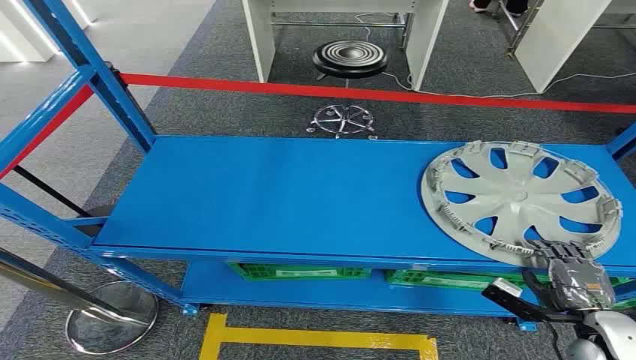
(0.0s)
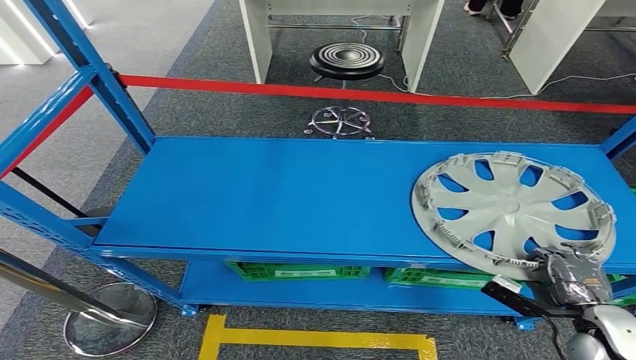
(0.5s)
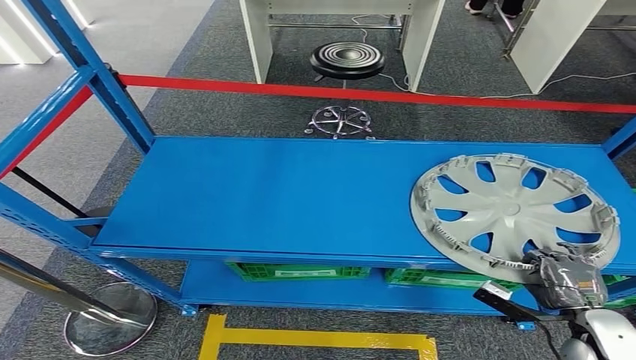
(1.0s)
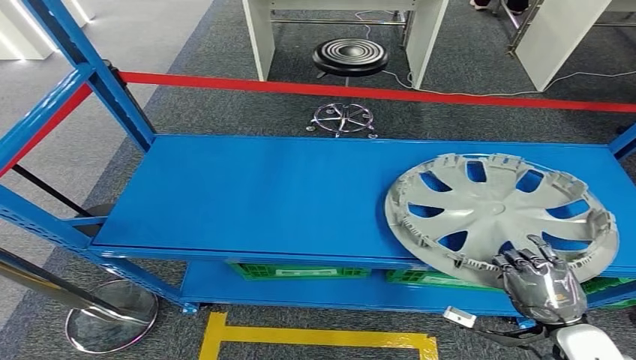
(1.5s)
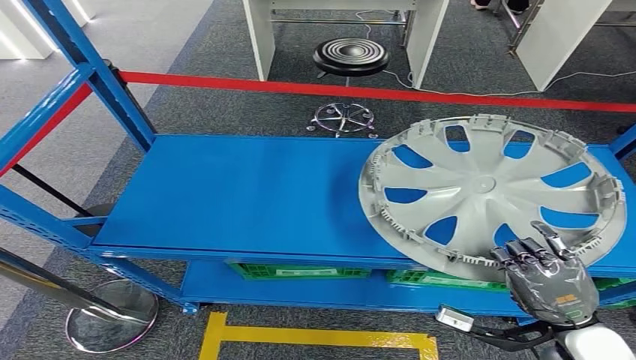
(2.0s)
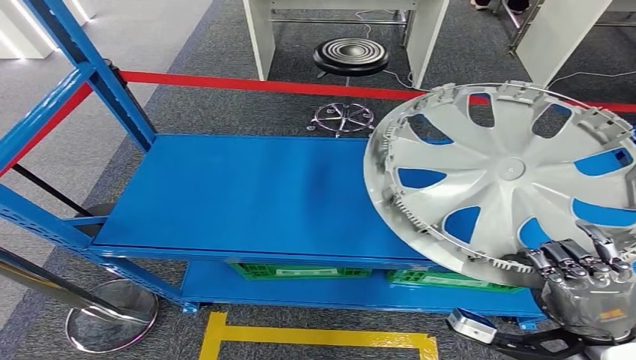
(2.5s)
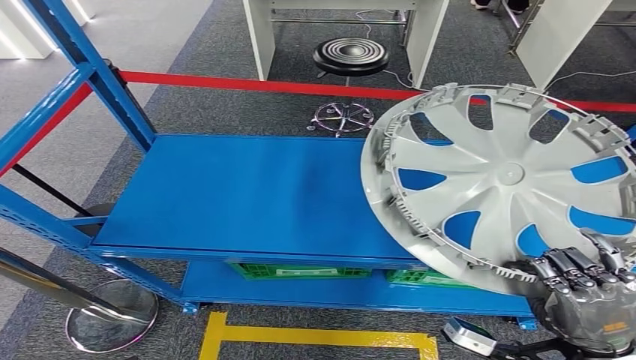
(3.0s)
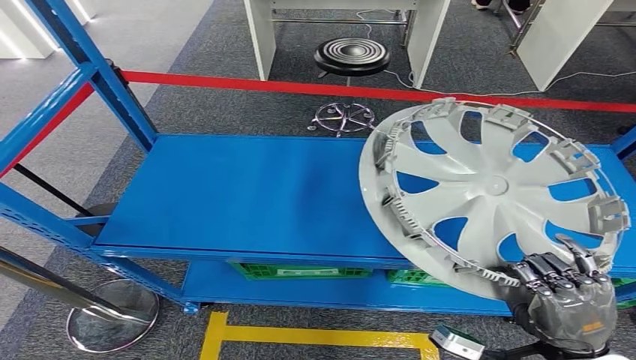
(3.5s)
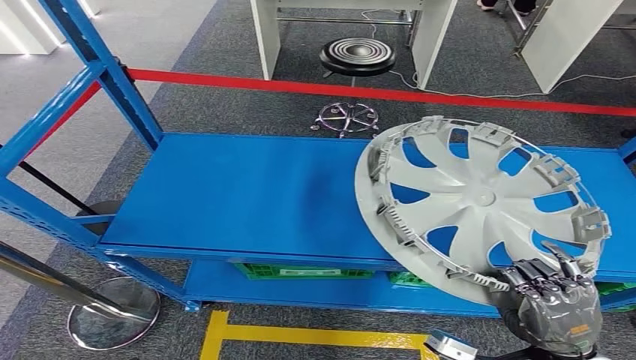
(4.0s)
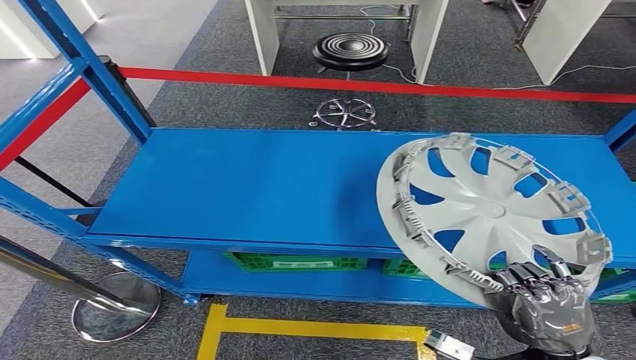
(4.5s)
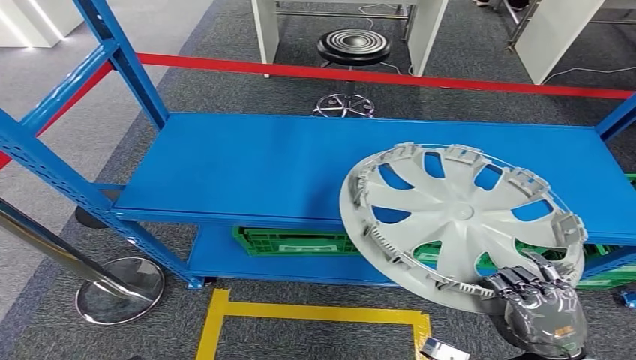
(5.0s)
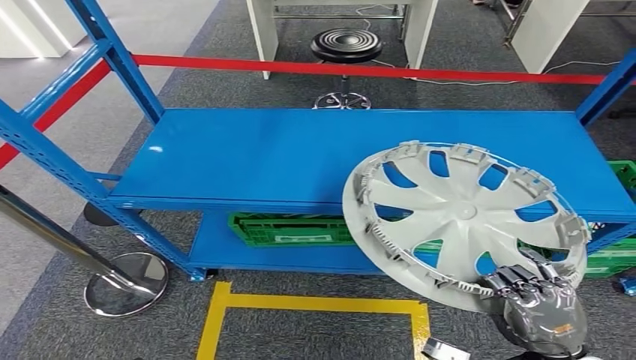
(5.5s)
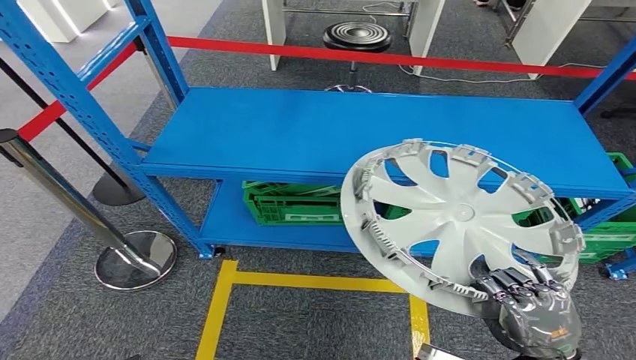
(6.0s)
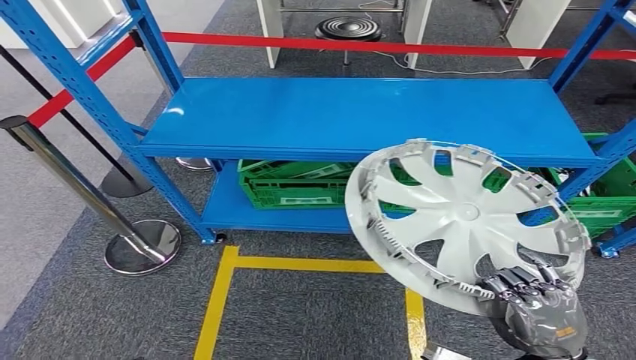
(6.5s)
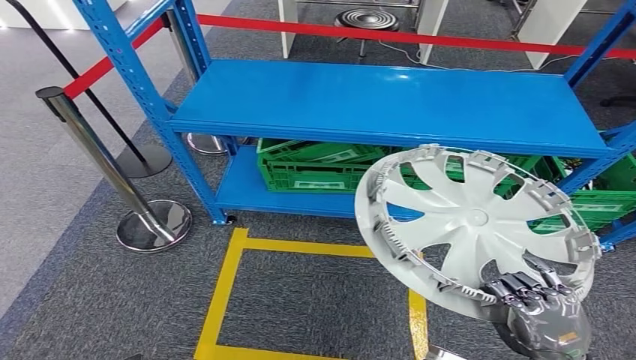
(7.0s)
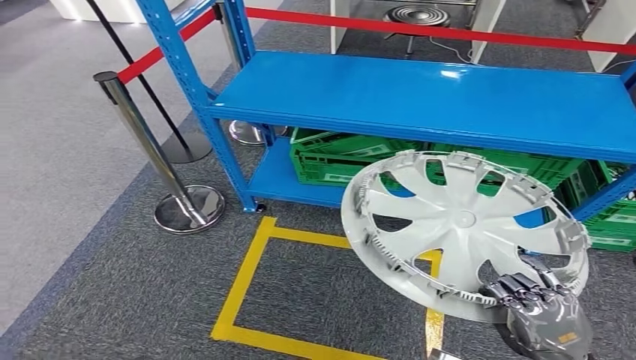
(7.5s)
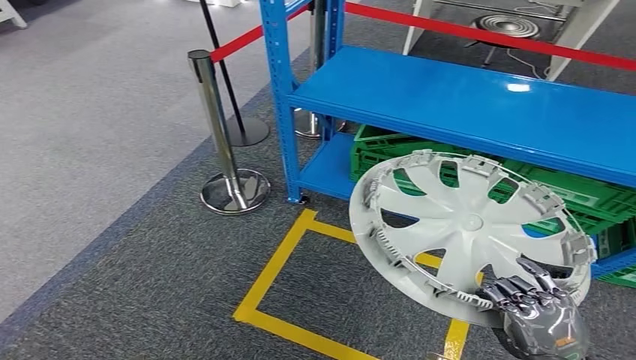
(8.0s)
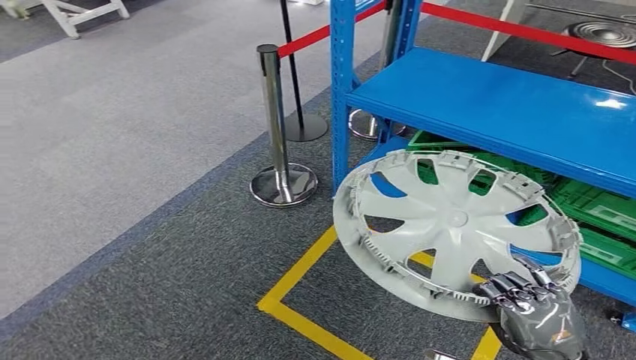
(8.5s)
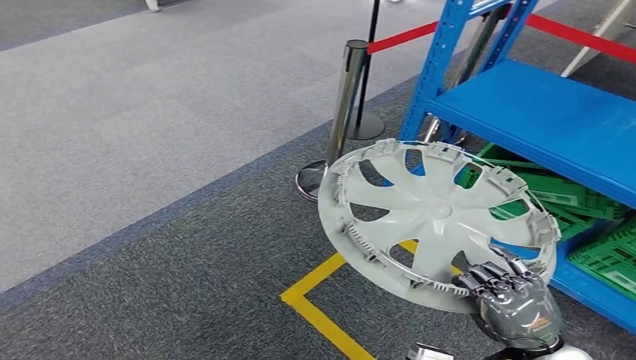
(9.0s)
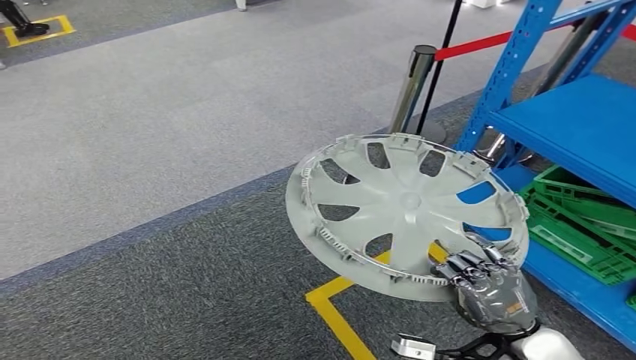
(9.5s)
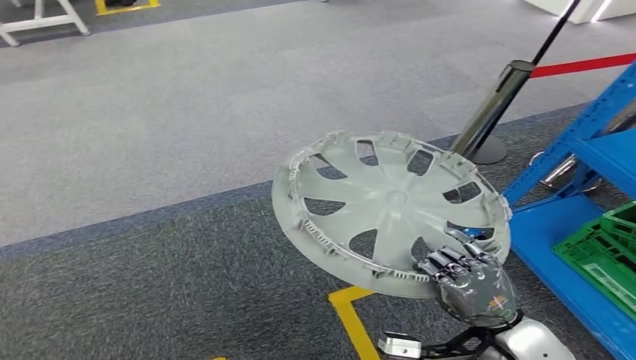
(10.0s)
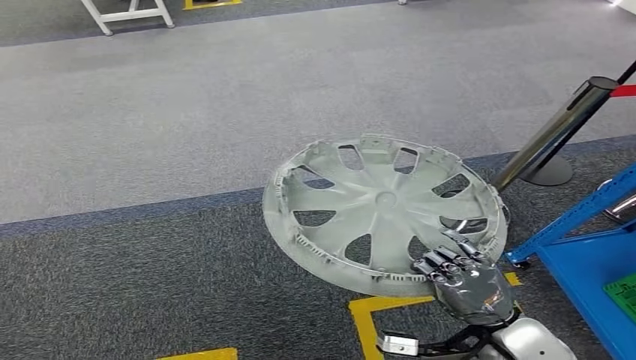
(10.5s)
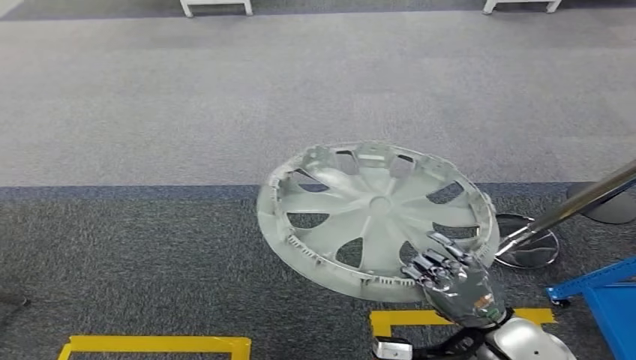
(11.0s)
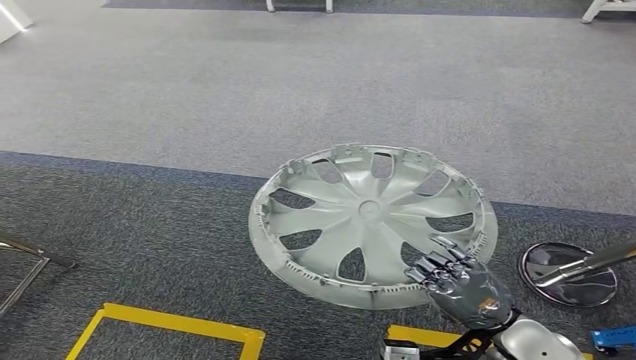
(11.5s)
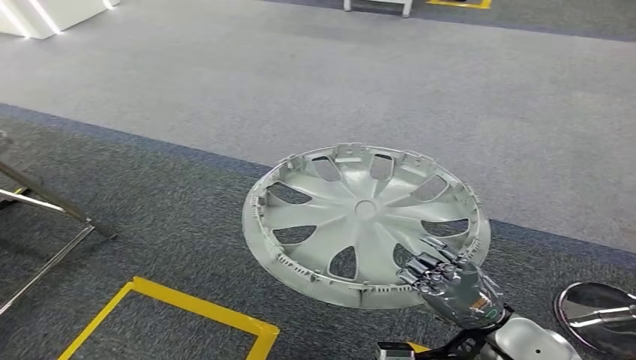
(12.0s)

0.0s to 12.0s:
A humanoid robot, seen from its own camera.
Step, 0.0s to 5.0s: Take small components from the rack.

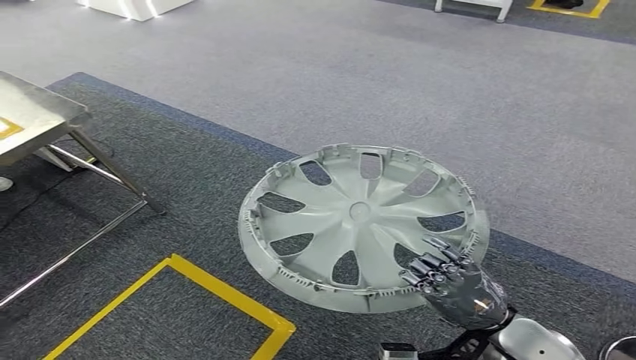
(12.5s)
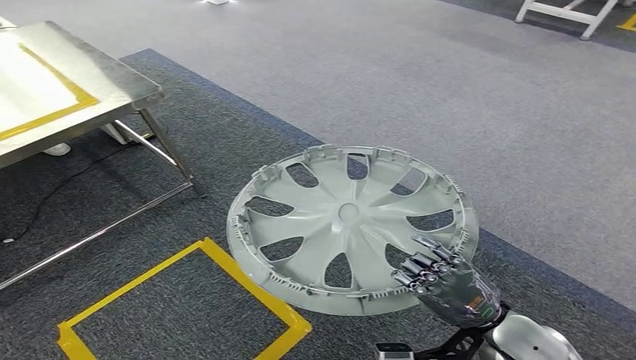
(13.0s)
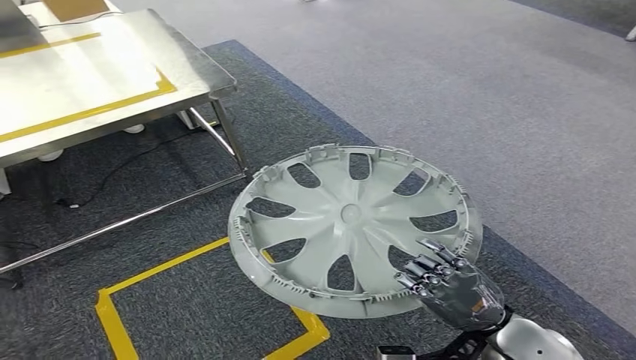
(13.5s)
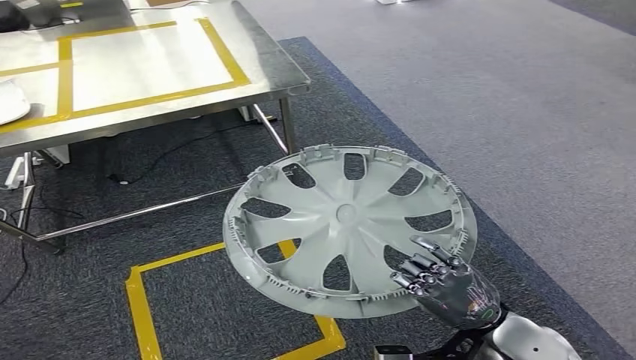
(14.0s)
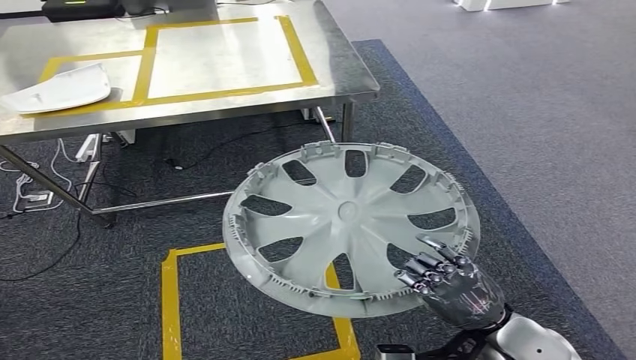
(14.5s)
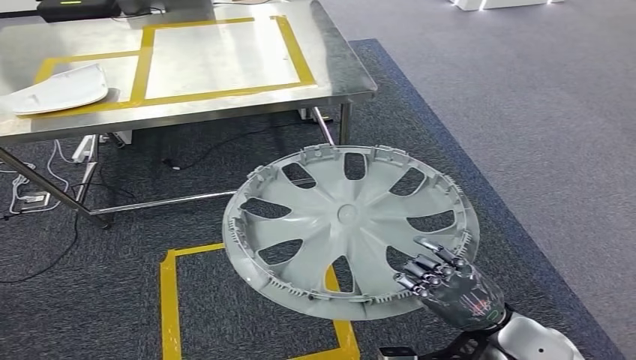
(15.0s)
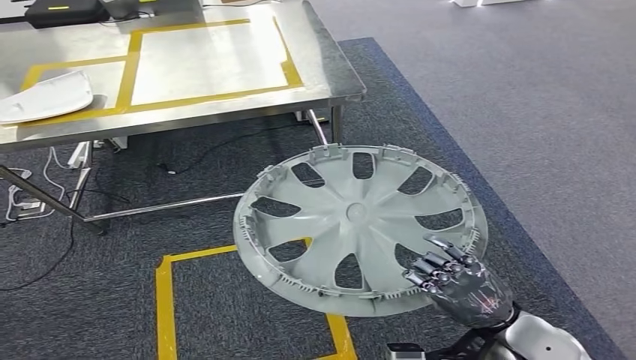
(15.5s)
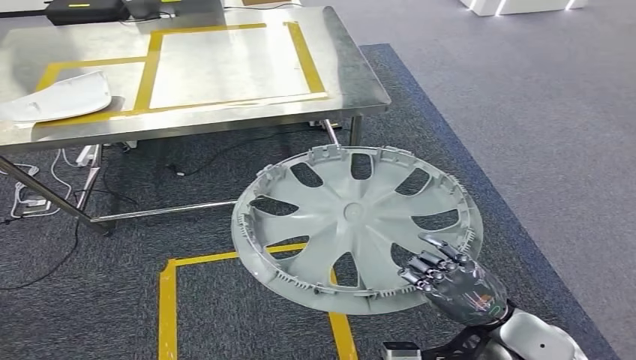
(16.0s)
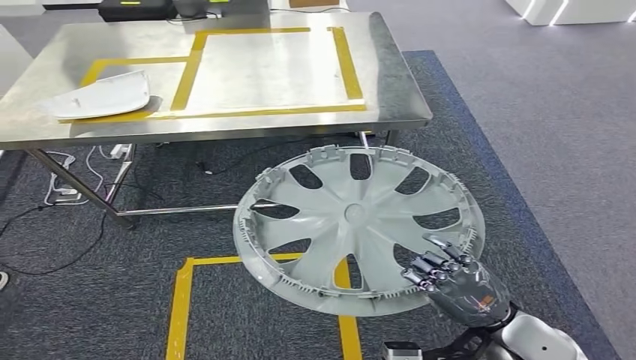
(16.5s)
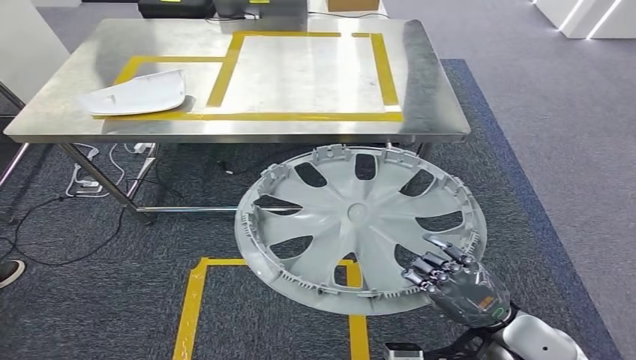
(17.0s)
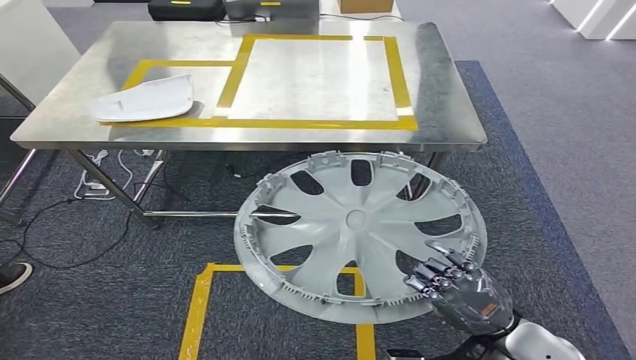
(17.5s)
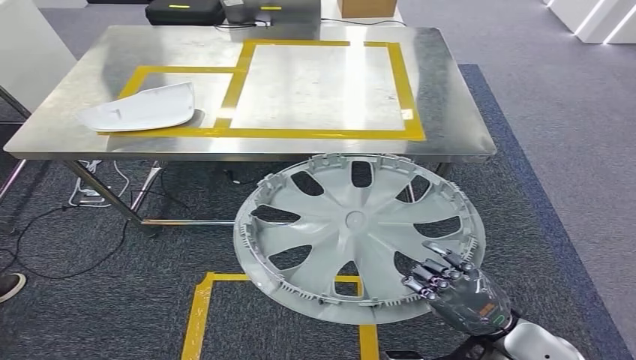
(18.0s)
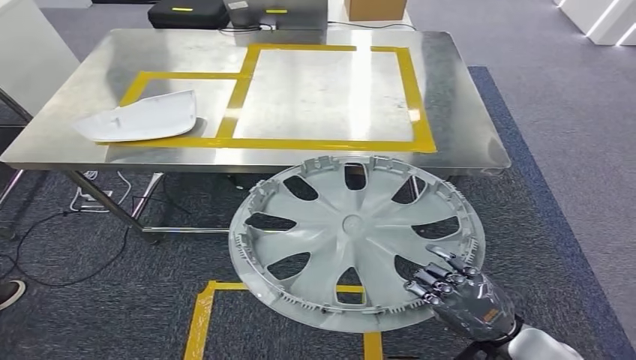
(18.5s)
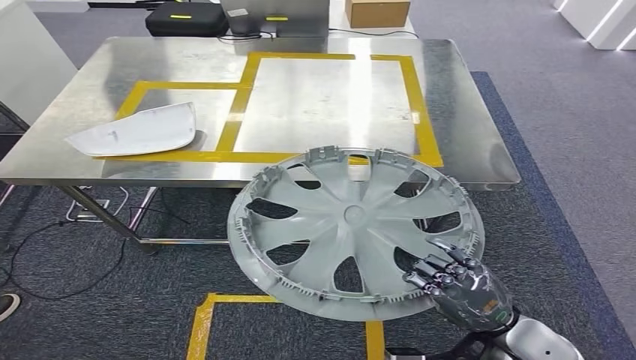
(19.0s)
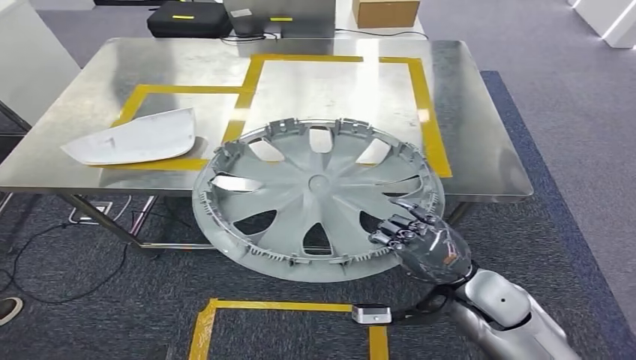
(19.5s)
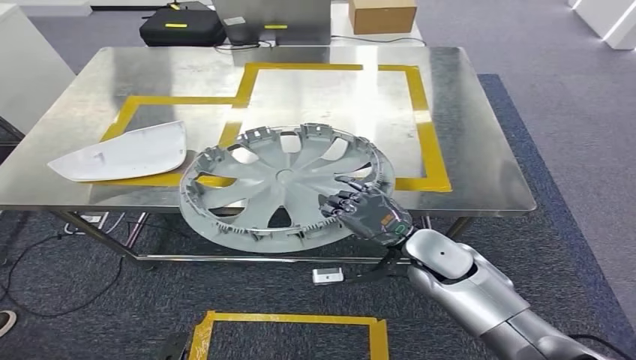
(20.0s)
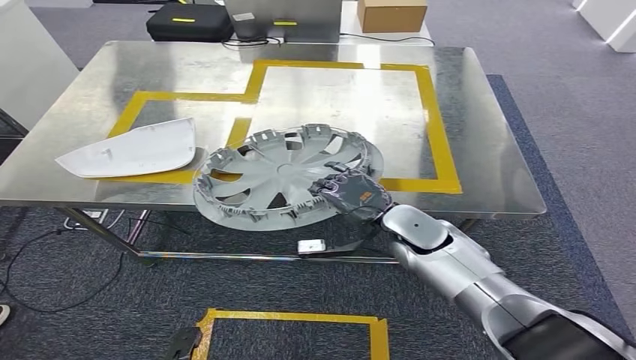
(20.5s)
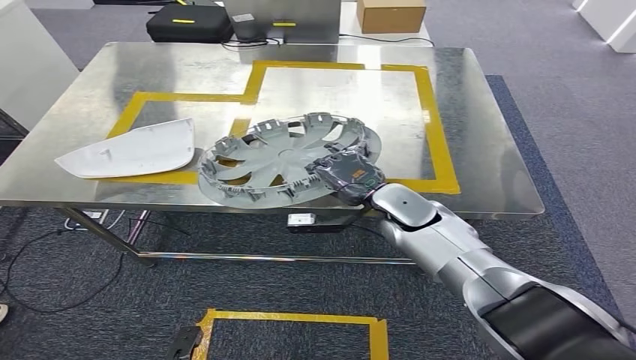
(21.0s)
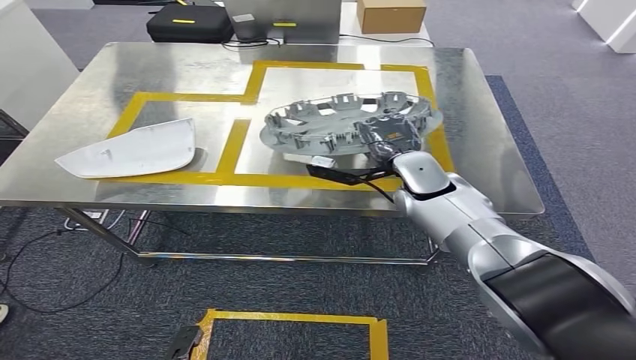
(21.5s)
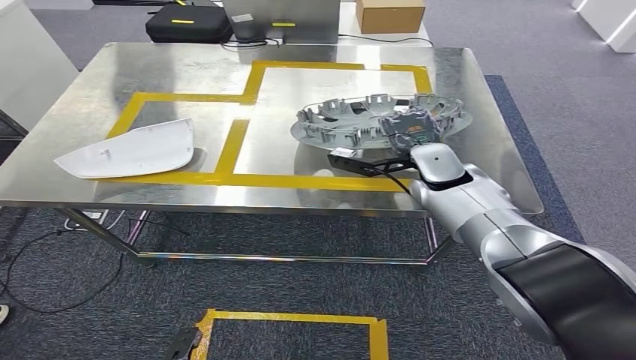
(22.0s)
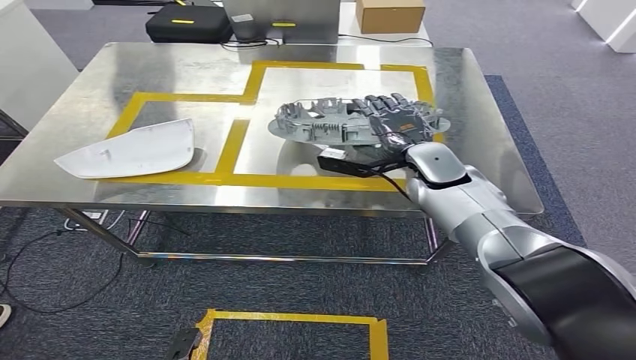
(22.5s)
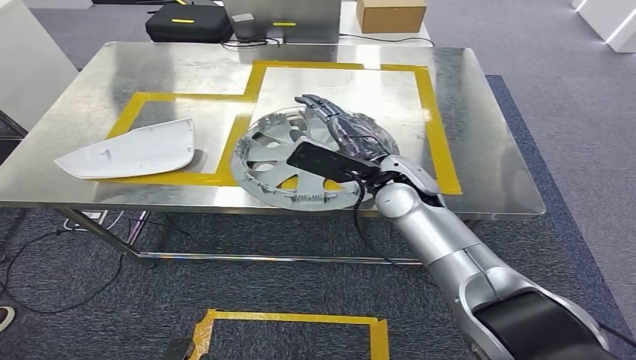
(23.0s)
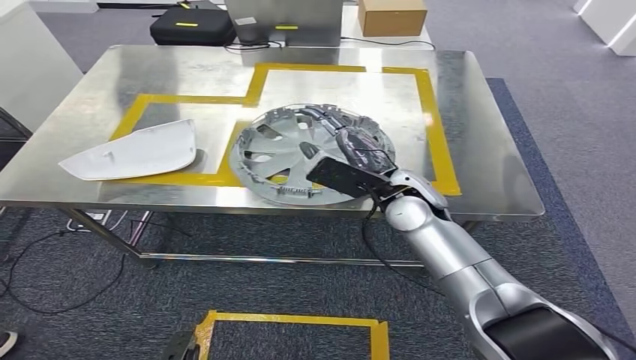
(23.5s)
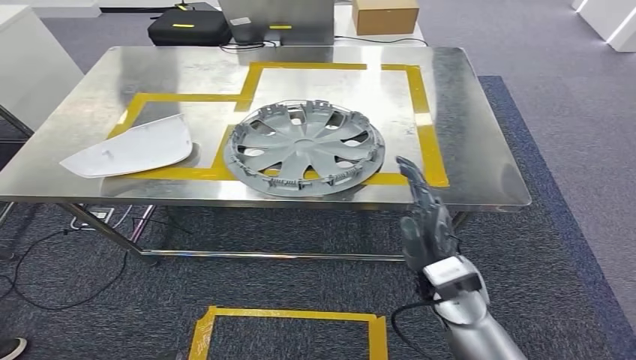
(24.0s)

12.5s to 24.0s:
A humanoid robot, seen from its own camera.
Step, 12.5s to 19.5s: Move the small parts to the workbench.
